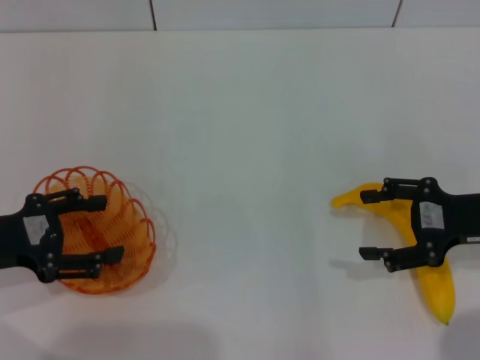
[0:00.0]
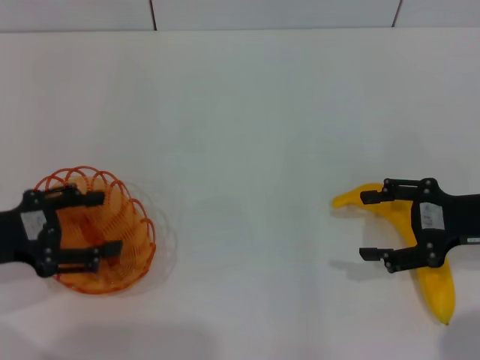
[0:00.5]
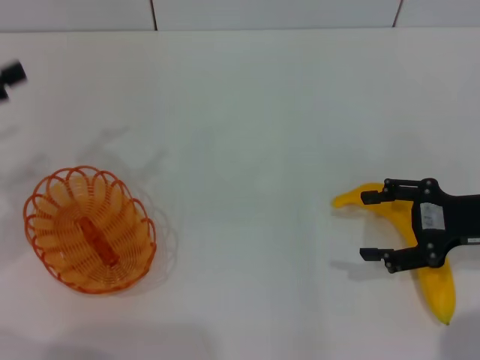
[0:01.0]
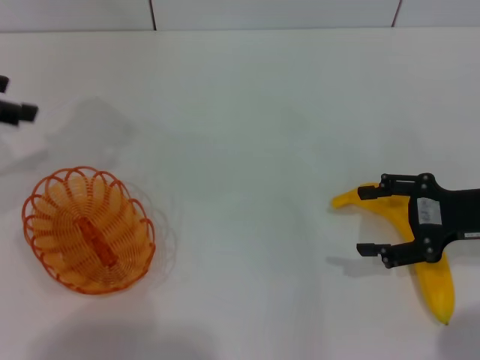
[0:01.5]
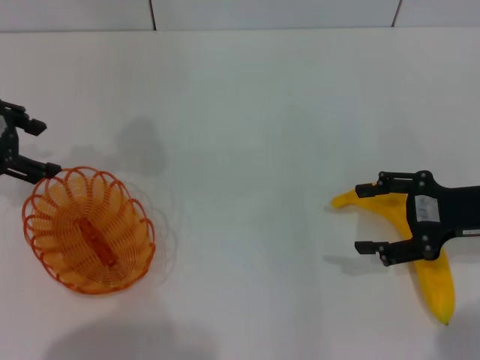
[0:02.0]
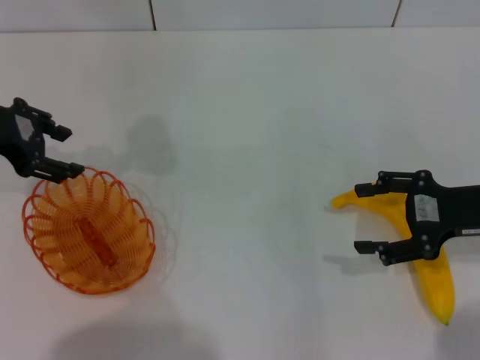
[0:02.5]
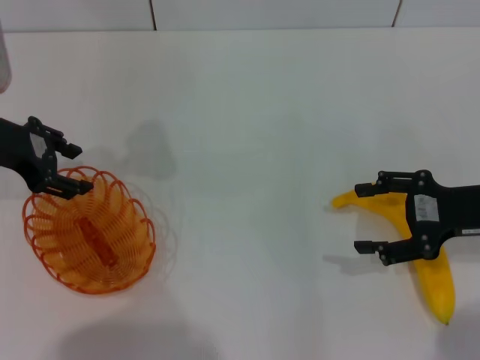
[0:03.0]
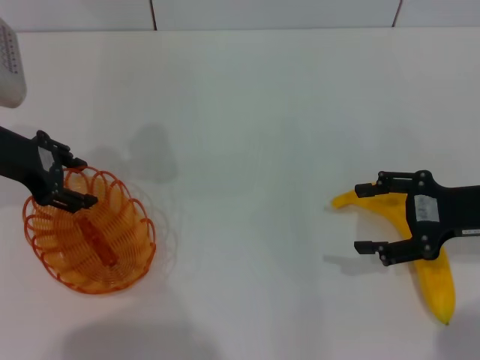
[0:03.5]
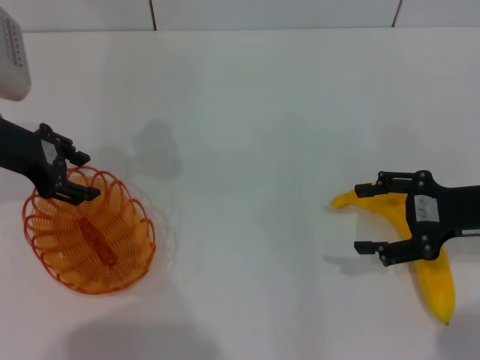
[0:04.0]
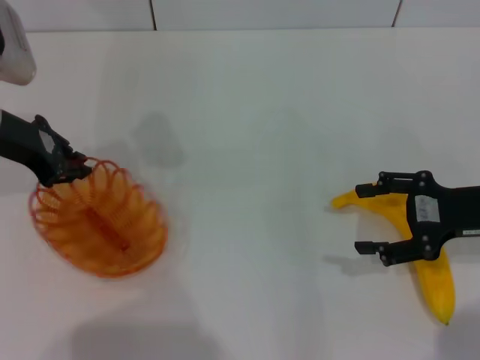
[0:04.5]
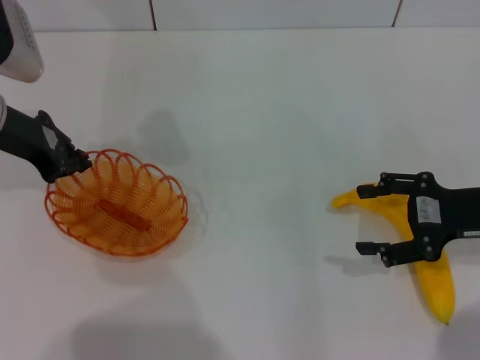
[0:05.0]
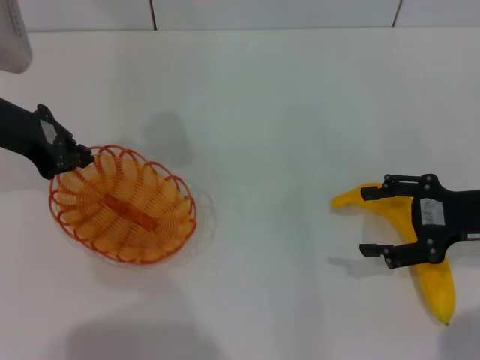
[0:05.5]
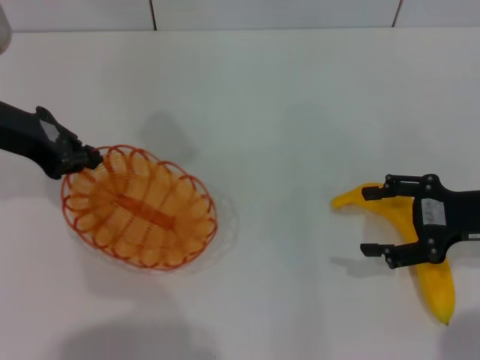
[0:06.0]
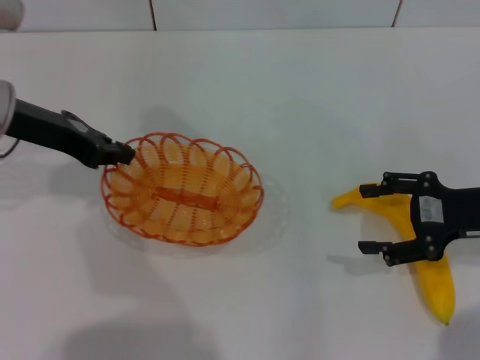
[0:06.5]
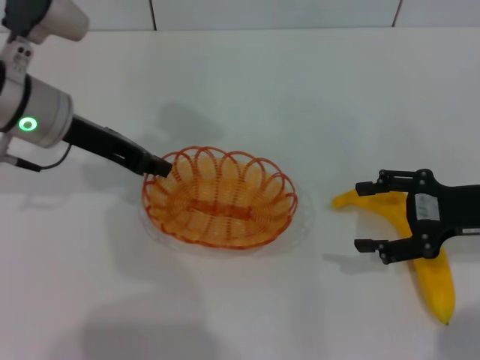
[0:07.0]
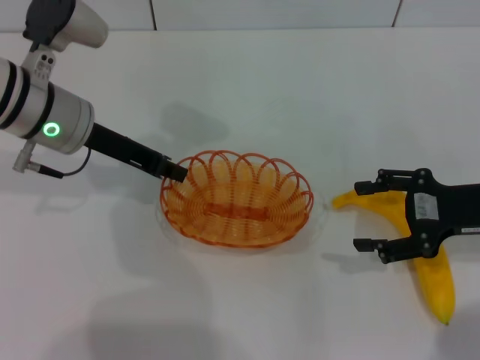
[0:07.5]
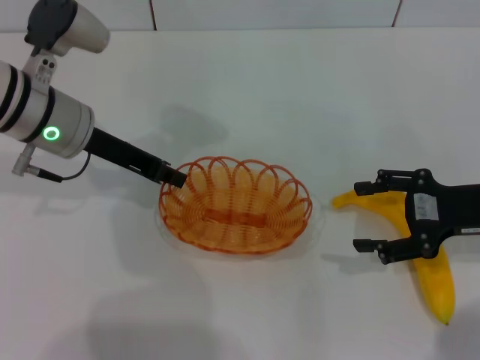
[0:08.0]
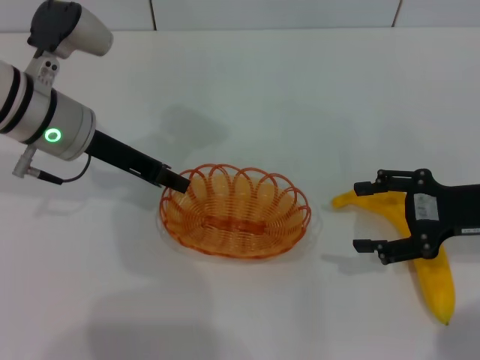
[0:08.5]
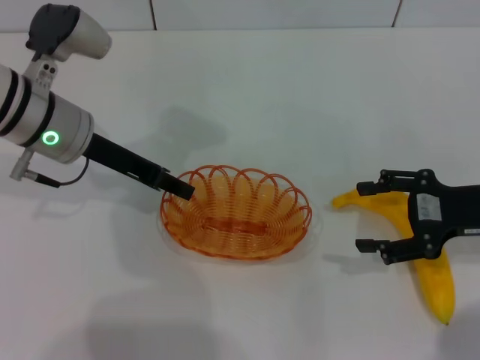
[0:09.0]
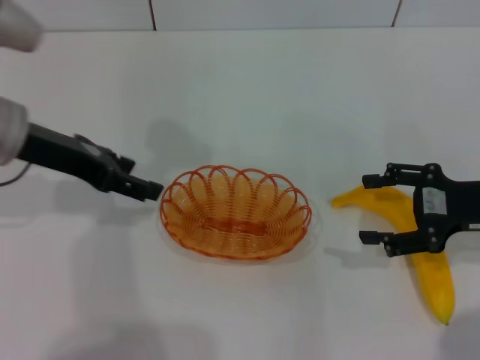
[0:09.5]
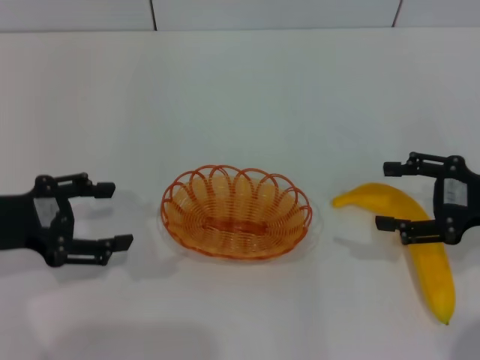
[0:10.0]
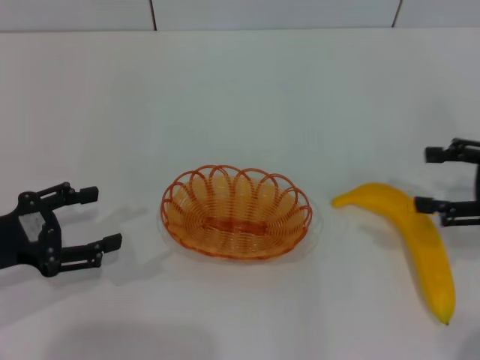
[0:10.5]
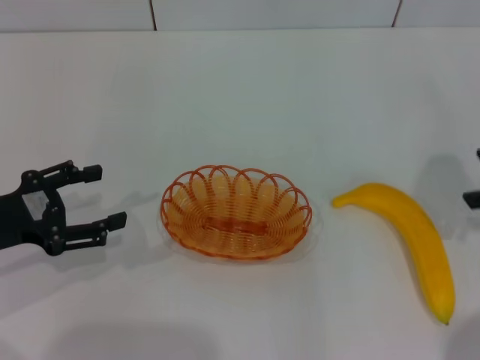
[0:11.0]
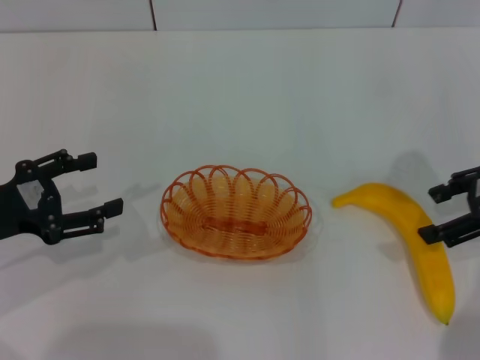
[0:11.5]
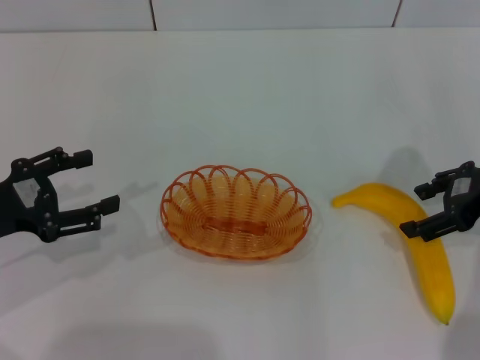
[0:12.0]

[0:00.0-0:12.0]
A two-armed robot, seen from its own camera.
Step, 0:00.0 to 0:06.0: Pick up the basket with the left gripper.
Step, 0:06.5 to 0:10.5: Place the basket in the center of view with the left gripper.
0:00.0 to 0:02.0: The left gripper shifts approximately 15 cm forward and upward.
0:02.0 to 0:04.0: The left gripper changes place by some 5 cm.
0:04.0 to 0:06.0: The left gripper closes.
0:06.0 to 0:08.0: The left gripper is displaced to the right by approximately 5 cm.
0:08.0 to 0:10.0: The left gripper heads backward and to the left, covering approximately 15 cm, and opens its fingers.

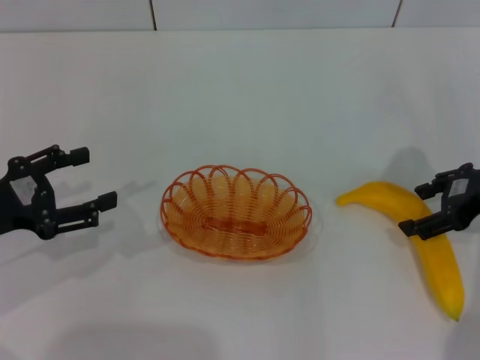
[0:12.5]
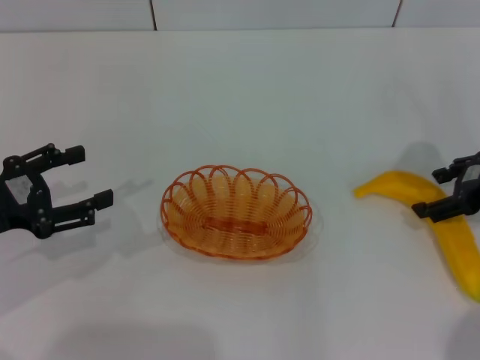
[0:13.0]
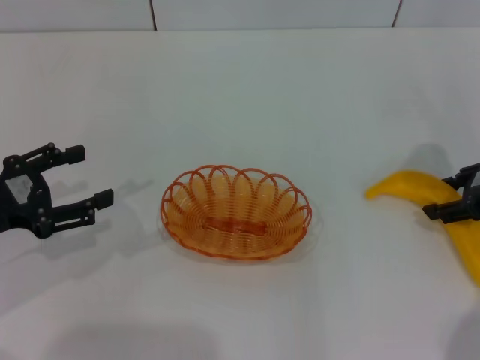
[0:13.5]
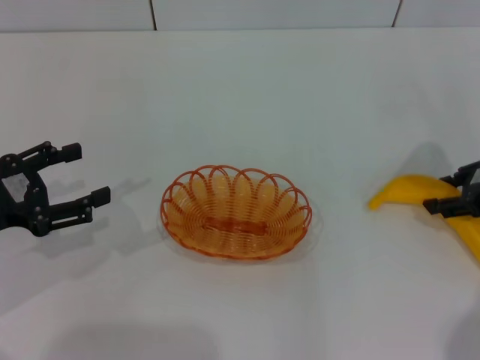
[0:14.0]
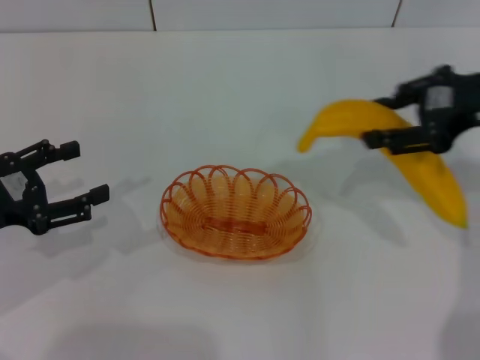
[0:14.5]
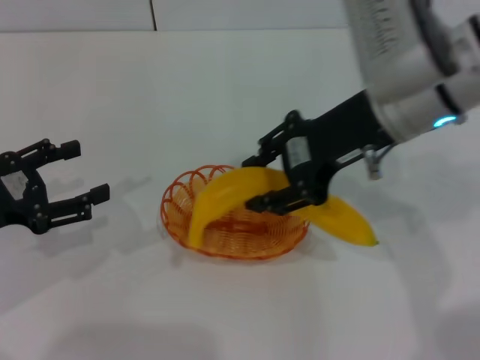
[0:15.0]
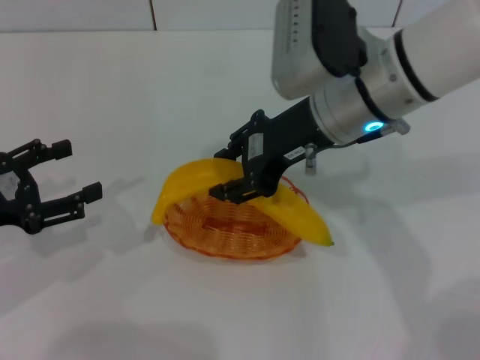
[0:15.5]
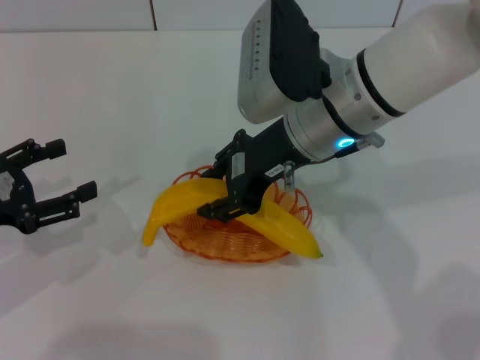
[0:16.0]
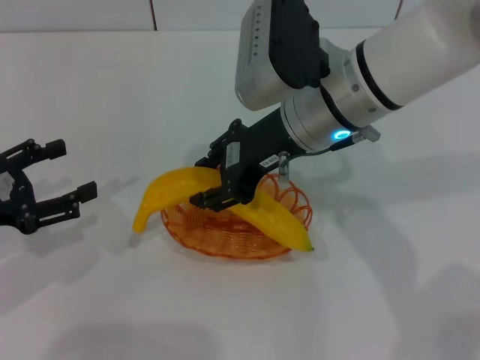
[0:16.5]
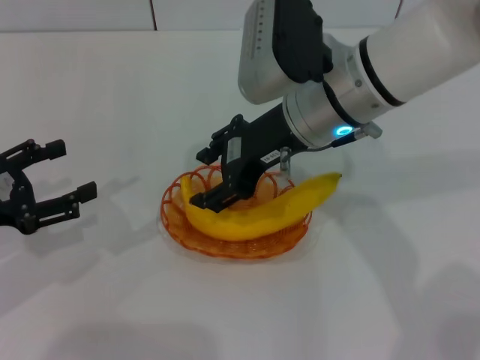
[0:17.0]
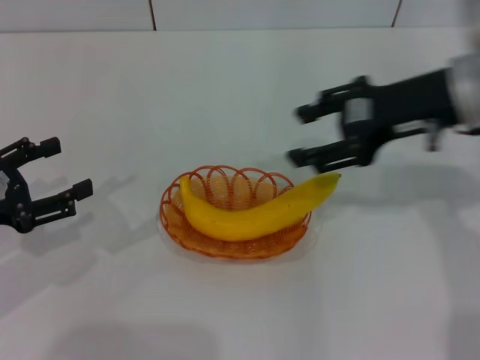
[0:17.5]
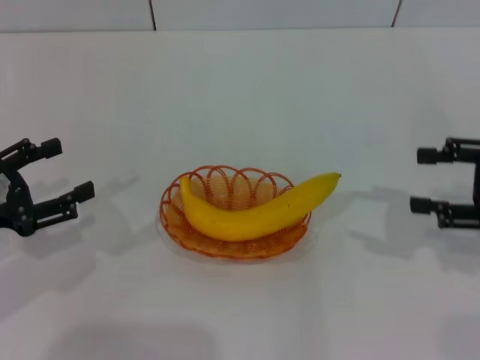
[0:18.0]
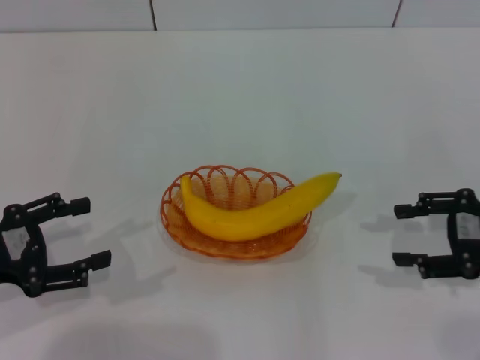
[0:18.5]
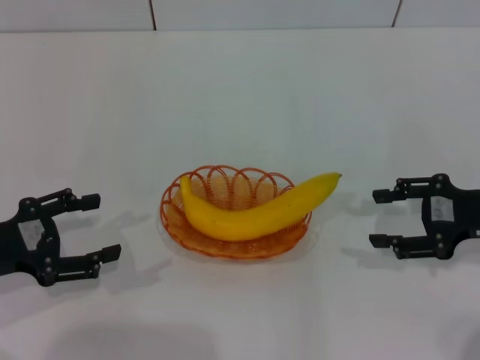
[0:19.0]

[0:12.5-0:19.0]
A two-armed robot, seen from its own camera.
Step, 0:14.5 to 0:17.0: Place the banana into the basket with the right gripper.
0:12.5 to 0:14.5: The right gripper is displaced upward by some 10 cm, and closes its fingers.
0:14.5 to 0:17.0: The right gripper heads to the left, covering some 20 cm, and opens.
0:17.0 to 0:19.0: The right gripper moves to the right, some 25 cm.

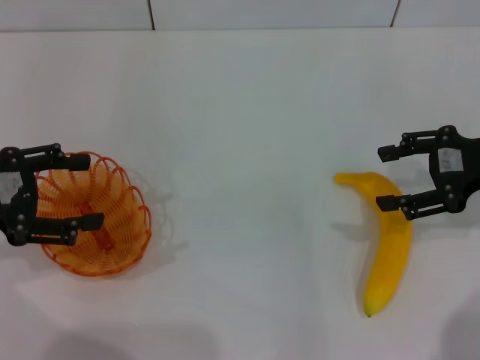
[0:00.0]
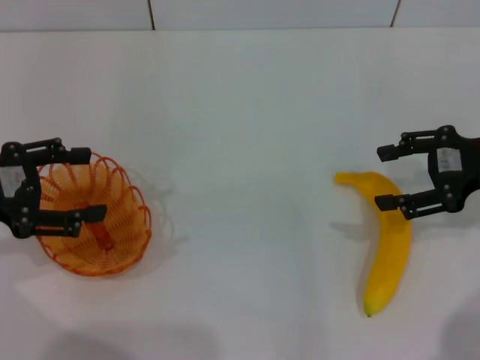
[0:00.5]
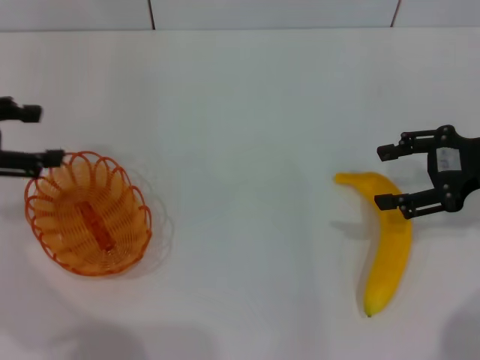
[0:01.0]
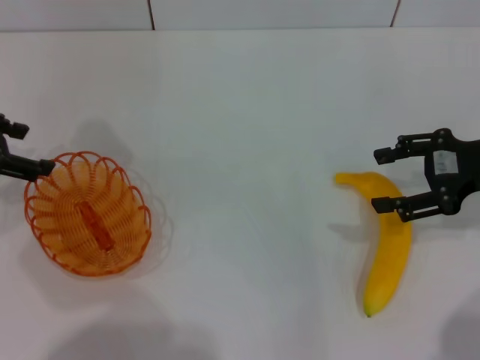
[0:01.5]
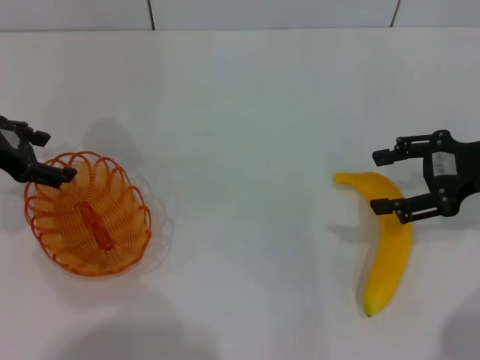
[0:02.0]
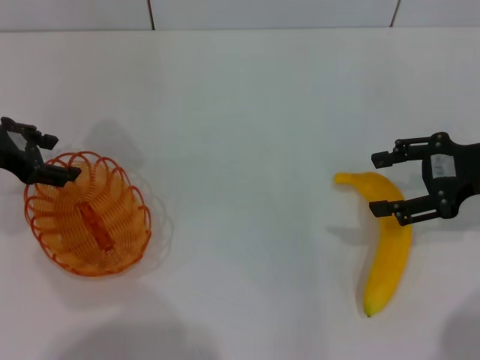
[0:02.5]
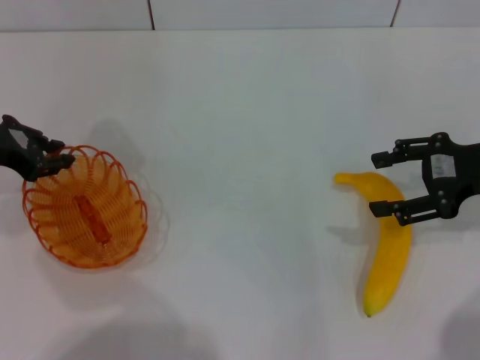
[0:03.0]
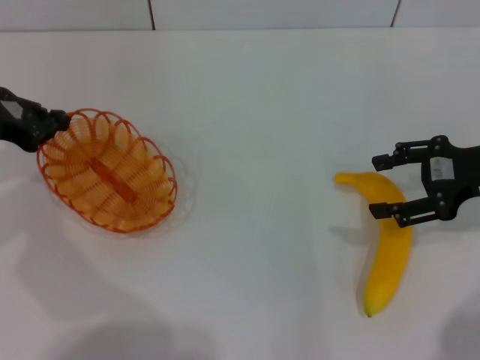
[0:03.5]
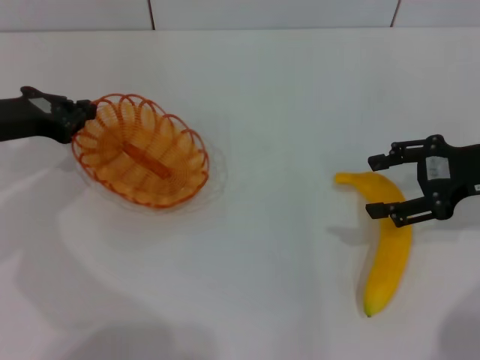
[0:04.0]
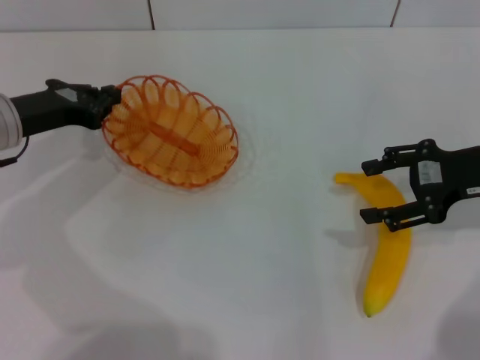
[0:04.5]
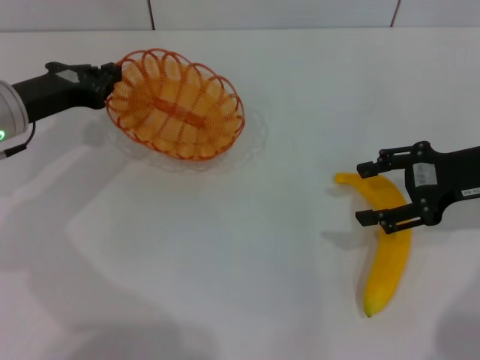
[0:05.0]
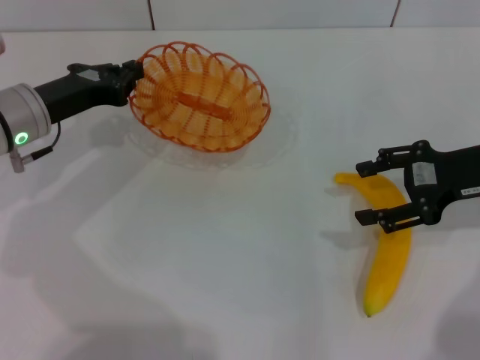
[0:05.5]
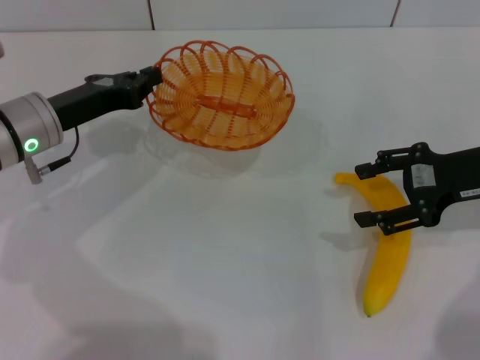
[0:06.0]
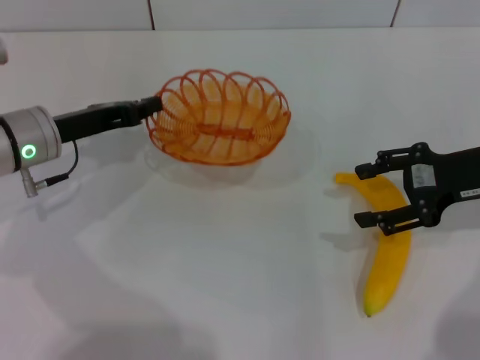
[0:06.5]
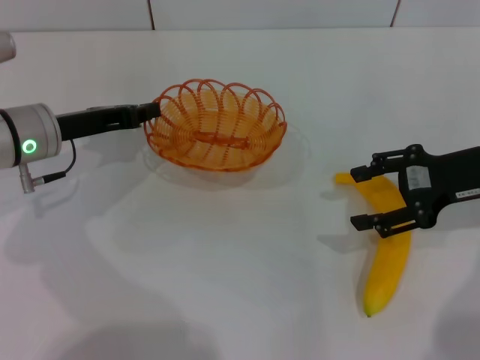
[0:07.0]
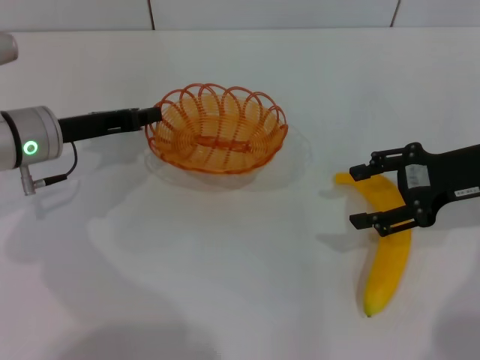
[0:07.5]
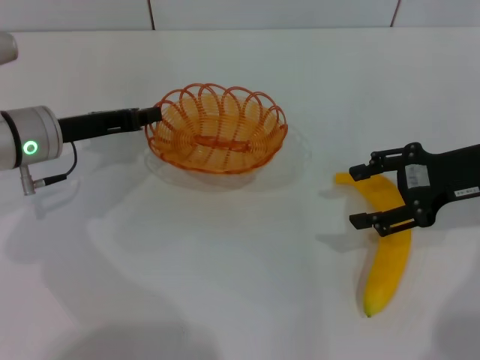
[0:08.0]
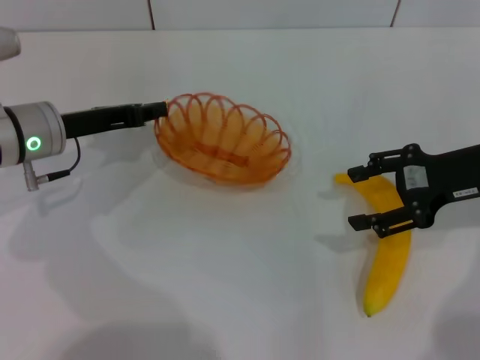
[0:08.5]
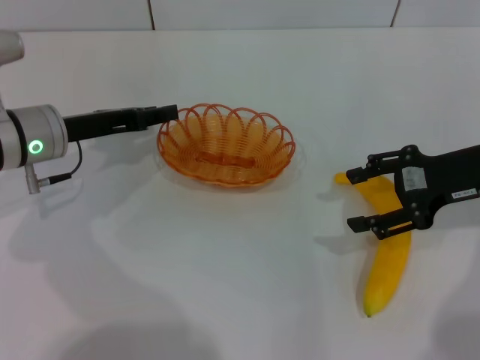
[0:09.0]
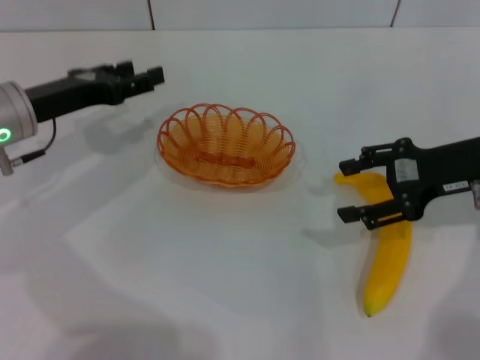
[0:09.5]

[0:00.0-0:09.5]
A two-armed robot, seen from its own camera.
Step, 0:00.0 to 0:04.0: Pick up the basket with the left gripper.
Step, 0:04.5 to 0:09.0: Place the basket in the center of view with the left gripper.
0:00.0 to 0:02.0: The left gripper heads forward, covering about 10 cm.
0:02.0 to 0:04.0: The left gripper closes up.
0:04.0 to 0:05.5: The left gripper moves to the right, approximately 5 cm.
0:07.5 to 0:09.5: The left gripper opens its fingers.
